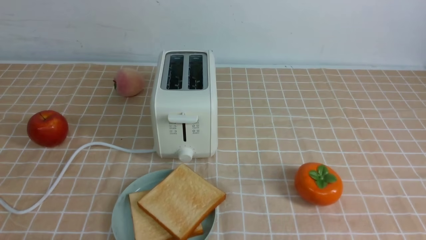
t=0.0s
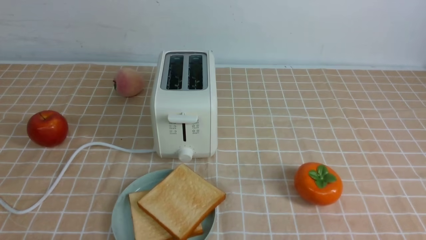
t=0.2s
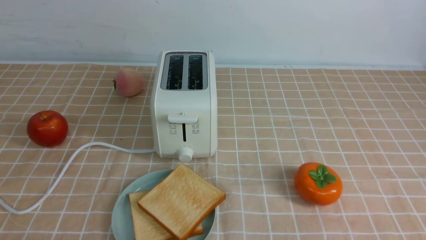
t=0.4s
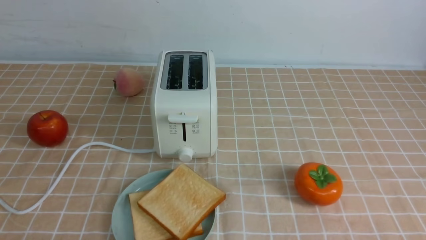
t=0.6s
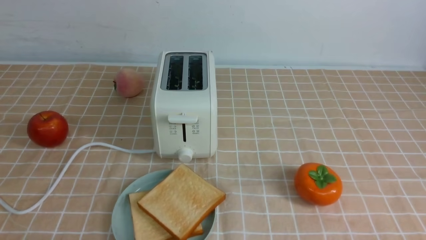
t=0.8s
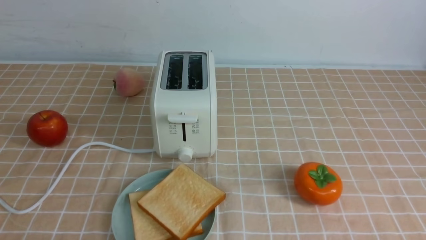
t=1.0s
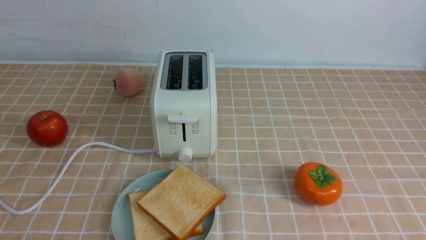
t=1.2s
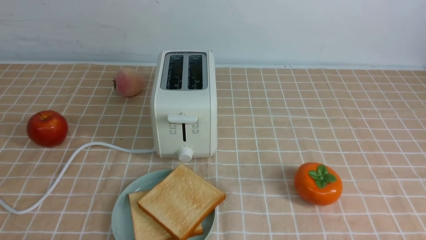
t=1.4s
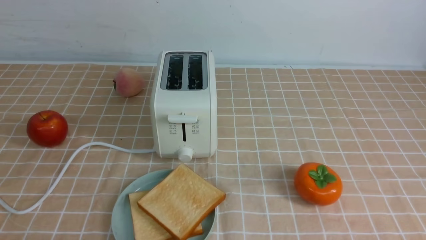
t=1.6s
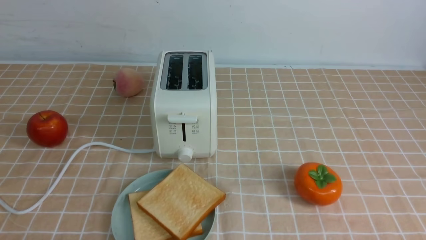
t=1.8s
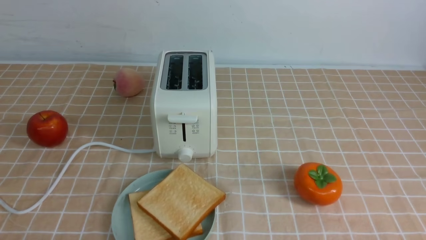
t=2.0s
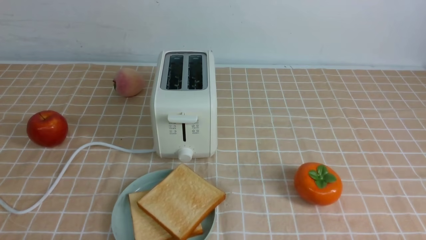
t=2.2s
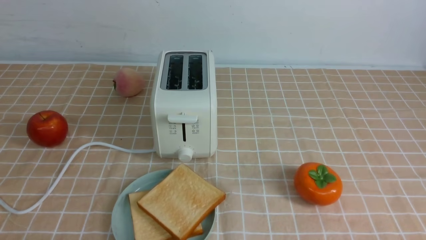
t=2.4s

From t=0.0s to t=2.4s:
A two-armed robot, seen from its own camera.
Task of the whole recording: take toasted bread from bread machine on light coffee tablecloth place on plate.
From t=1.2s to t=2.4s: Both grippers stay put.
